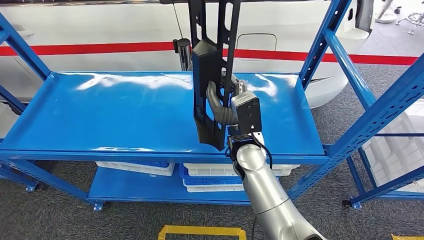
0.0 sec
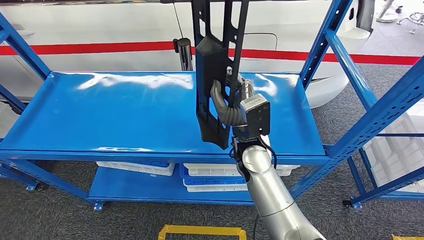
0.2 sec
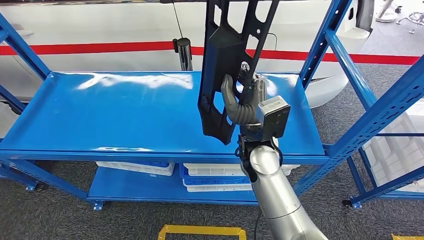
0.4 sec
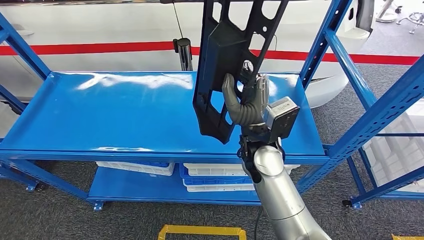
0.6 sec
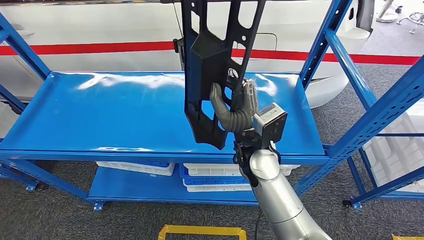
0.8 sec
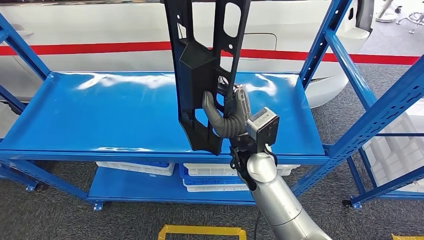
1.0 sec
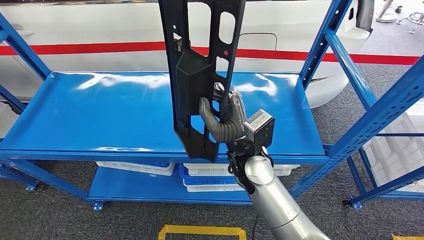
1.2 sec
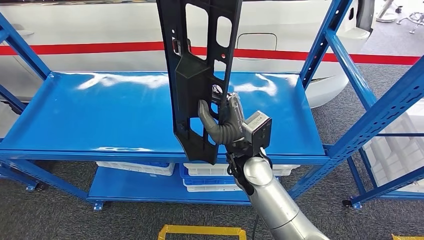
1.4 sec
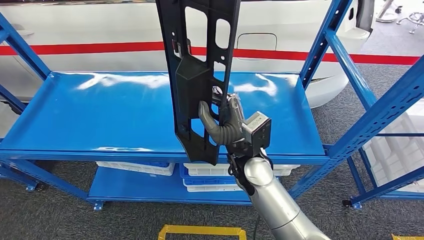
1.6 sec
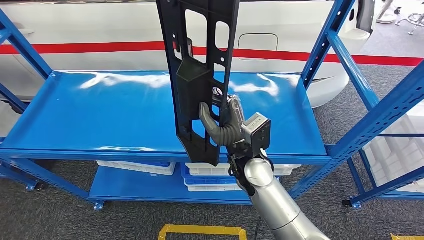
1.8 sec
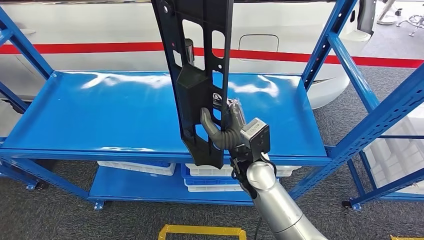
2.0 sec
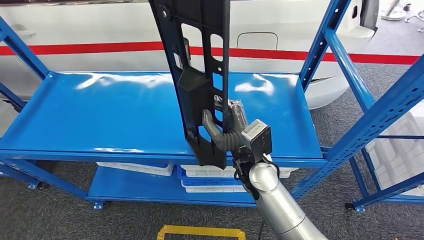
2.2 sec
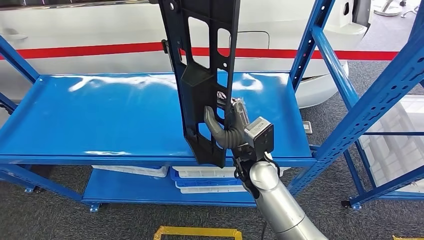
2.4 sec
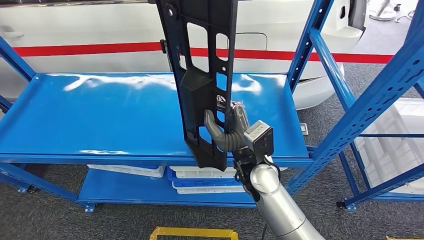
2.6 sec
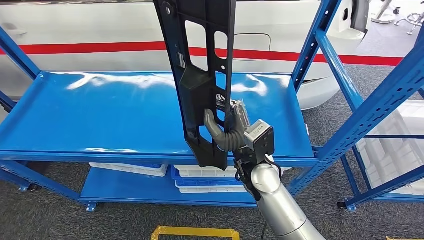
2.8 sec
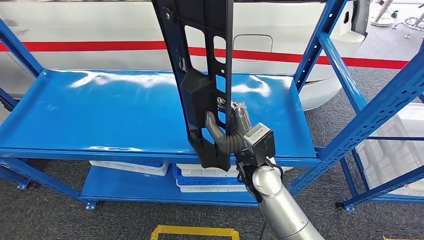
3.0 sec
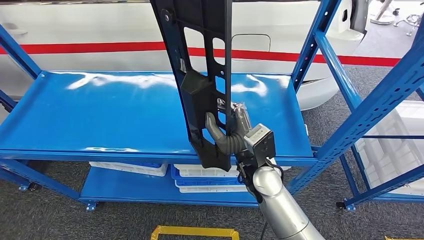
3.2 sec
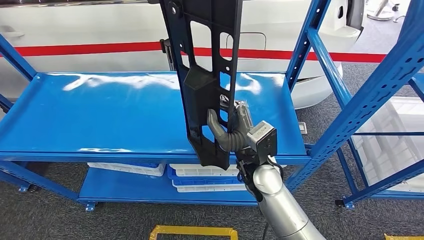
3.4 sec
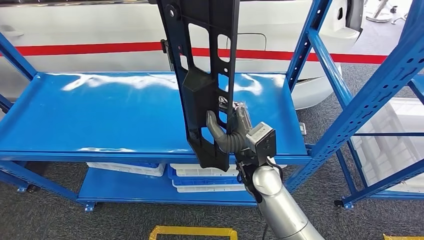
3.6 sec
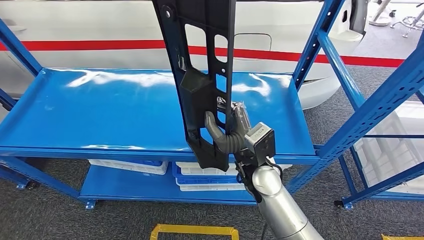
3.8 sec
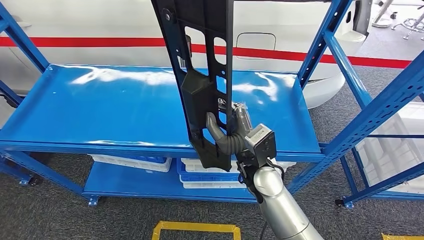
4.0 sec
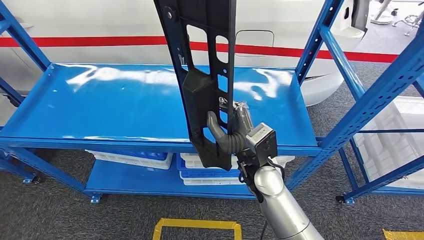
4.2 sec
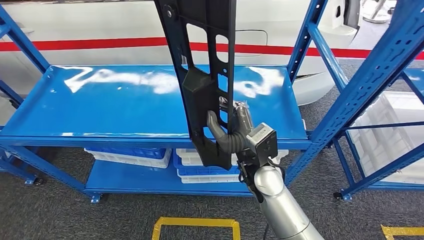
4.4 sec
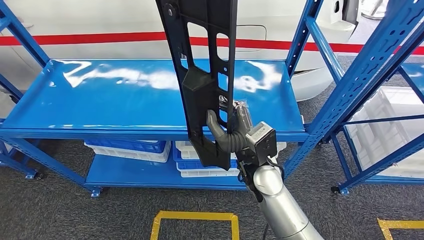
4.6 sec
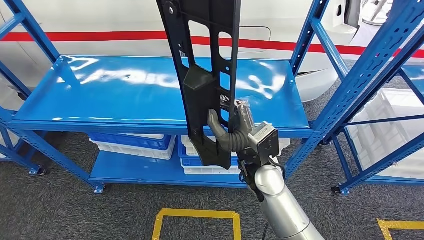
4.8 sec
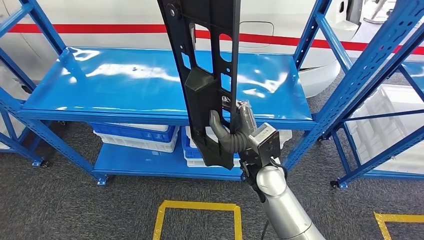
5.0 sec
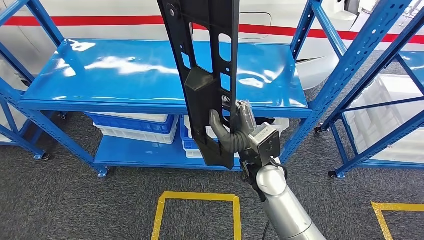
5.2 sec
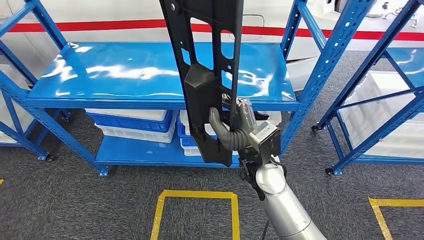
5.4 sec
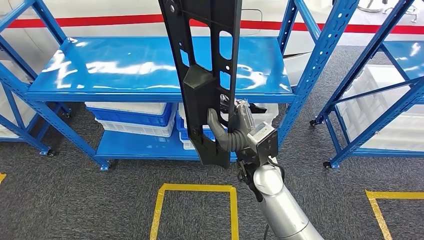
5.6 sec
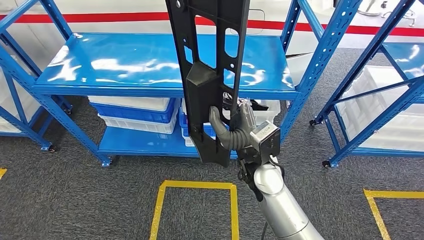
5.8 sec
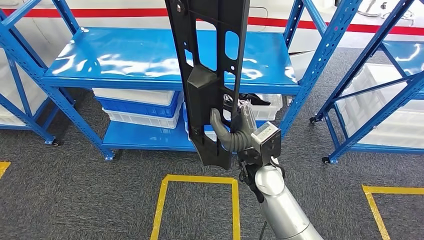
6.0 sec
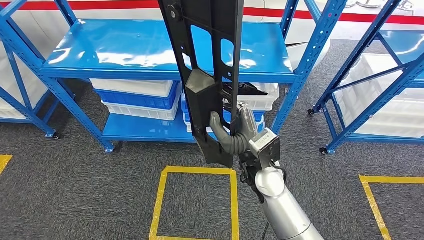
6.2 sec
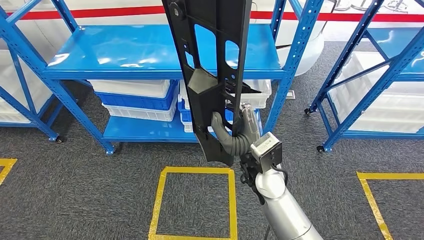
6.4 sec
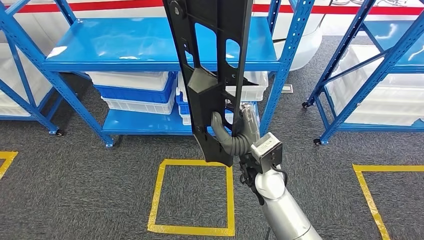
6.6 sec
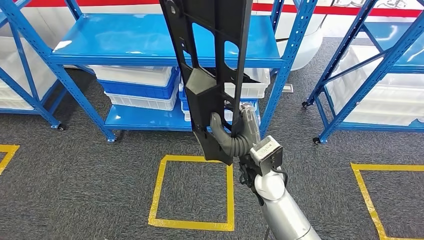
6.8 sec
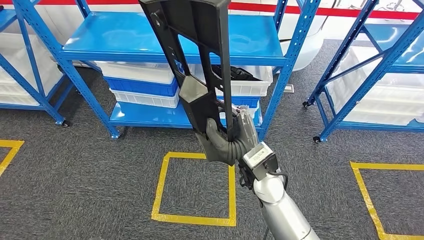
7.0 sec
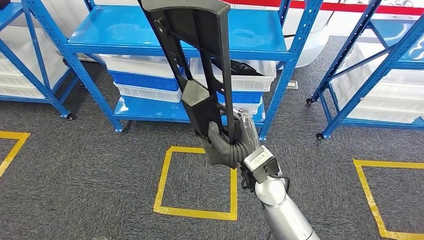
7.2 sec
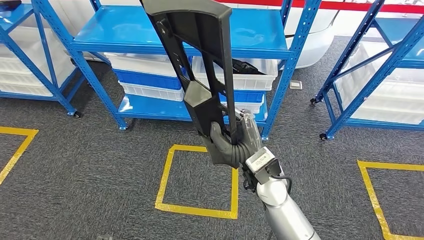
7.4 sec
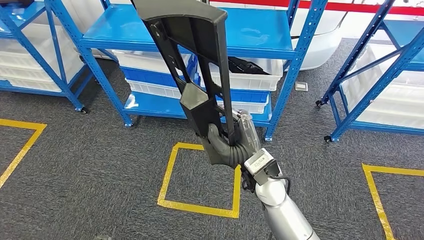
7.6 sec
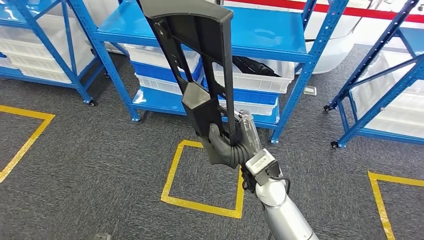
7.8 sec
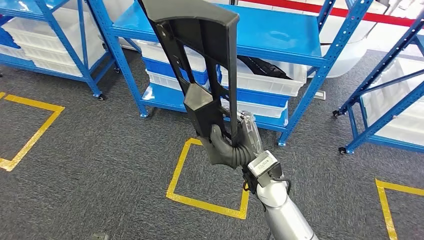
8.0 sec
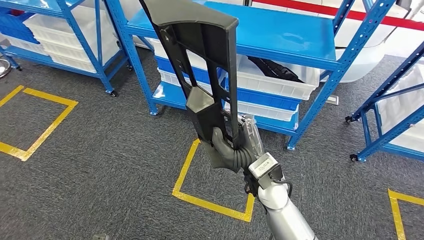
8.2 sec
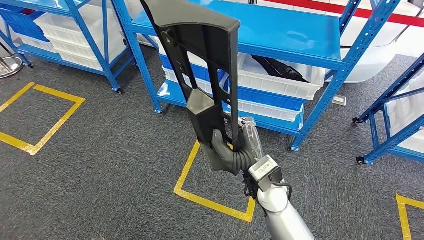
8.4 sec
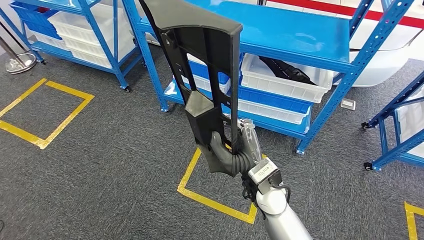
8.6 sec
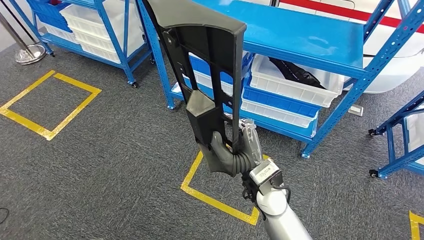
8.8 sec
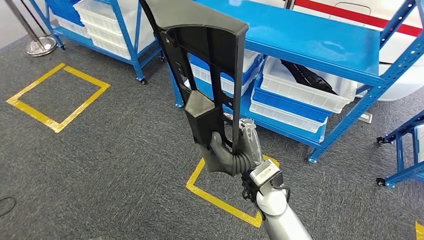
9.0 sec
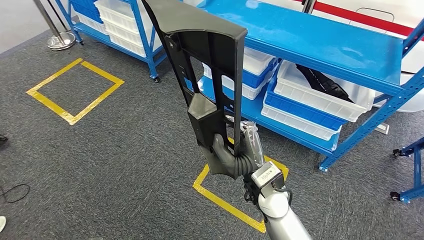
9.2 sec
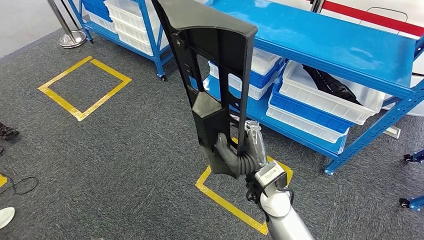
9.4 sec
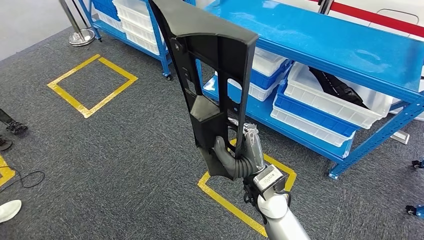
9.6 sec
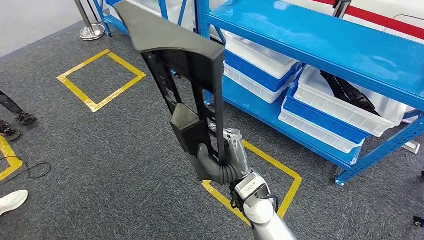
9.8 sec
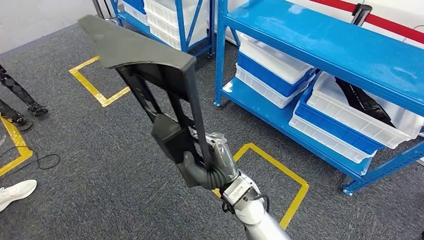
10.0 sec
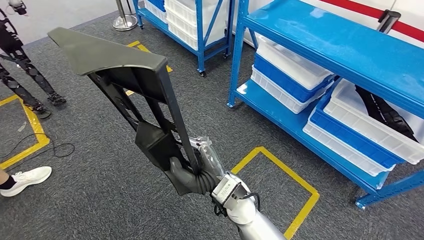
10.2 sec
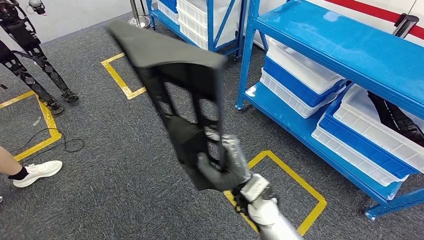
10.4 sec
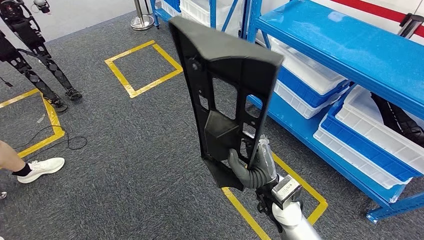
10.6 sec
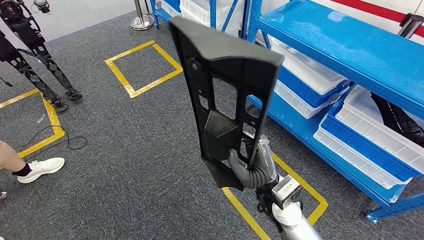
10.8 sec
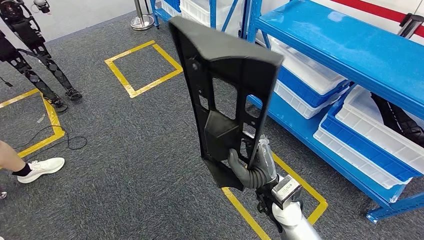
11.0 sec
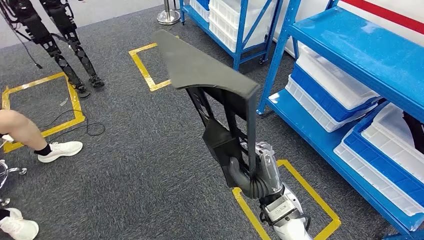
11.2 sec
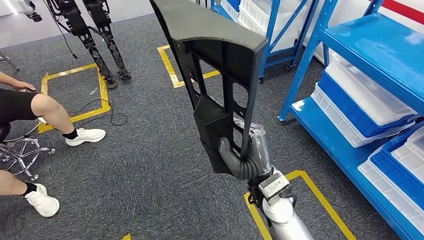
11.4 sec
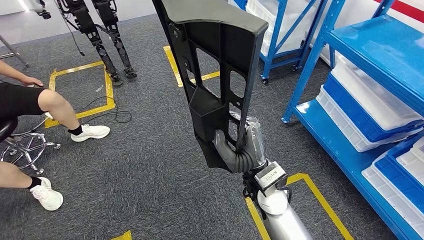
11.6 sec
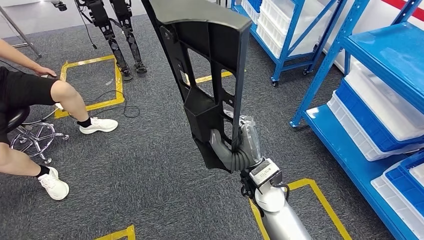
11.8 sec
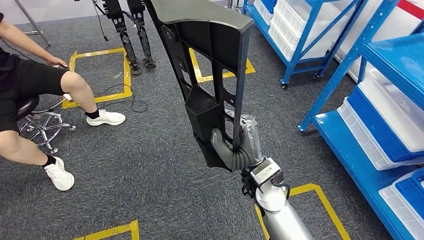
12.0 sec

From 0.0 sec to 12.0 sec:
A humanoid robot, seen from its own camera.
Step, from 0.0 sec to 2.6 sec: Pick up the large material from the shelf.
From 0.0 sec to 1.6 sec: There are only small adjustments of the hands.

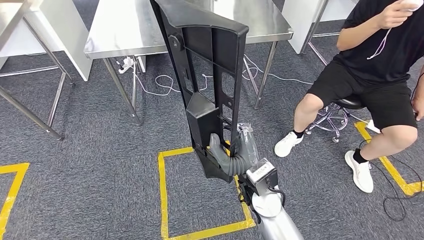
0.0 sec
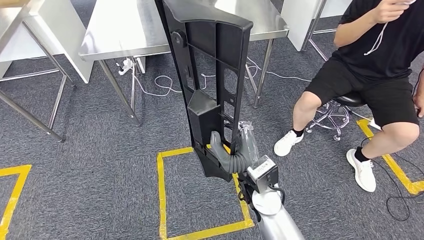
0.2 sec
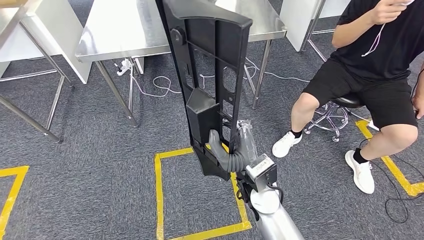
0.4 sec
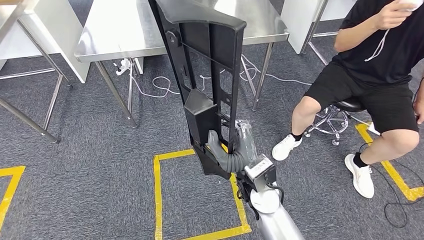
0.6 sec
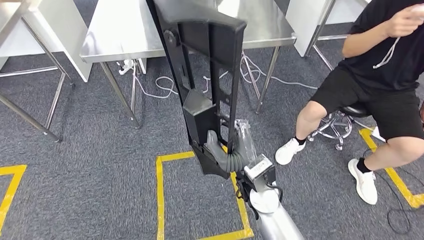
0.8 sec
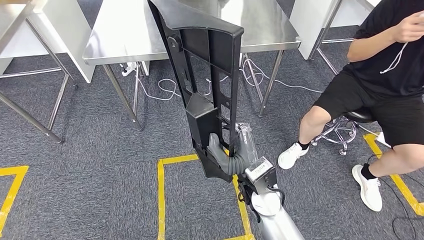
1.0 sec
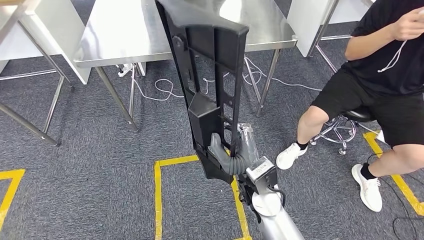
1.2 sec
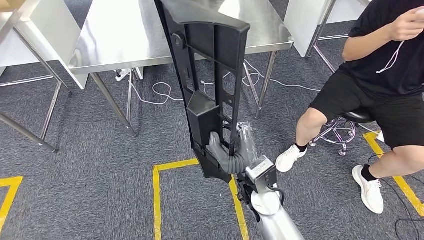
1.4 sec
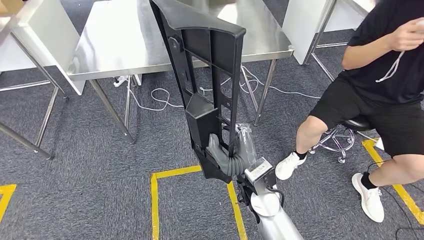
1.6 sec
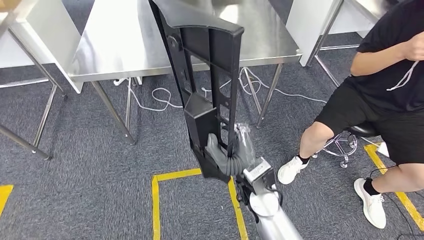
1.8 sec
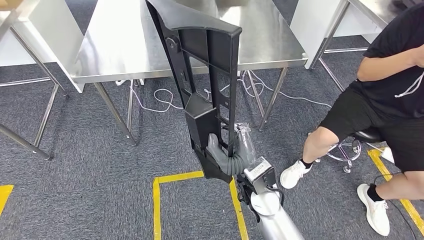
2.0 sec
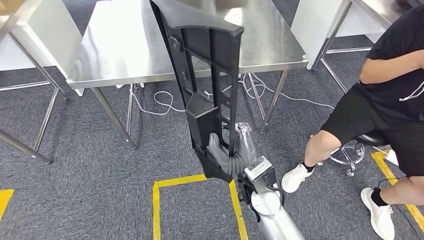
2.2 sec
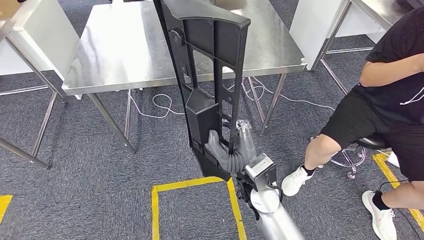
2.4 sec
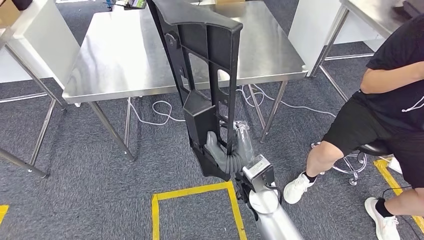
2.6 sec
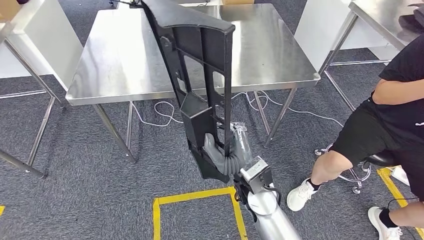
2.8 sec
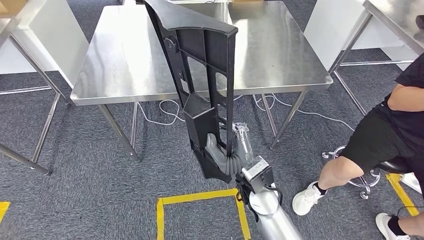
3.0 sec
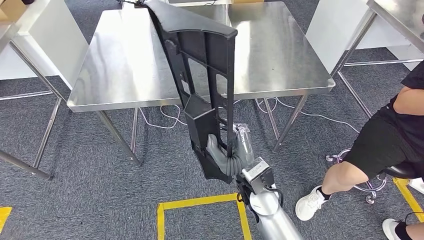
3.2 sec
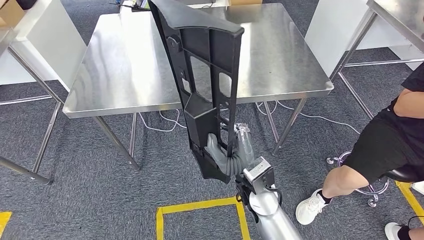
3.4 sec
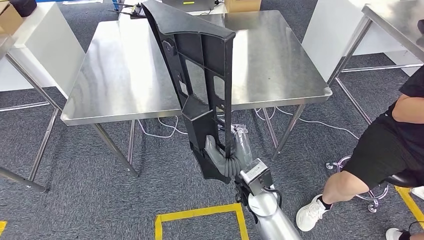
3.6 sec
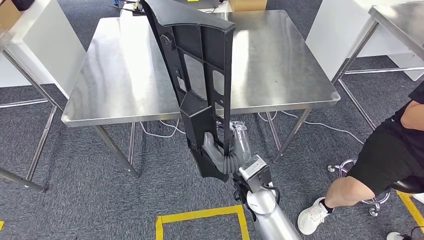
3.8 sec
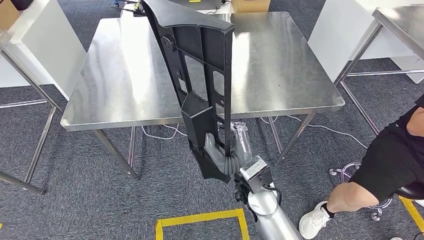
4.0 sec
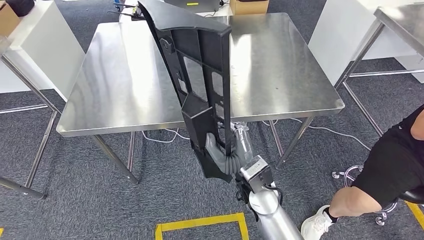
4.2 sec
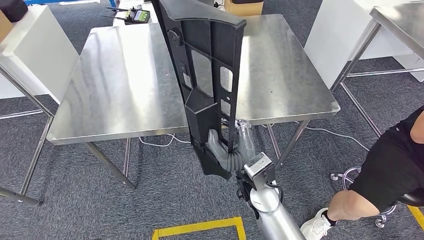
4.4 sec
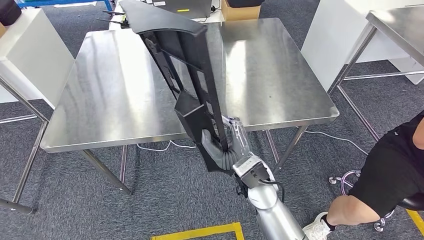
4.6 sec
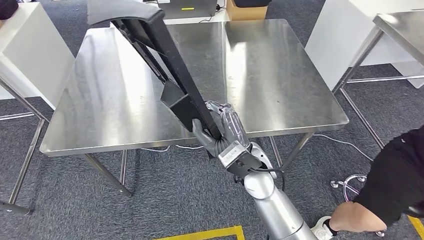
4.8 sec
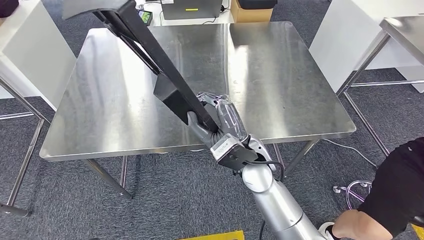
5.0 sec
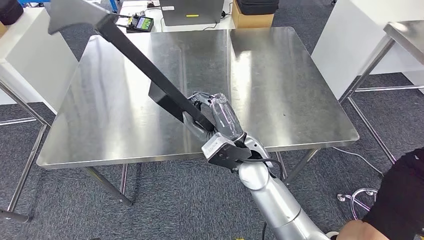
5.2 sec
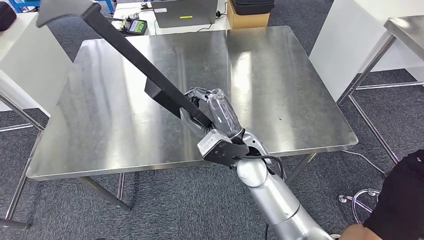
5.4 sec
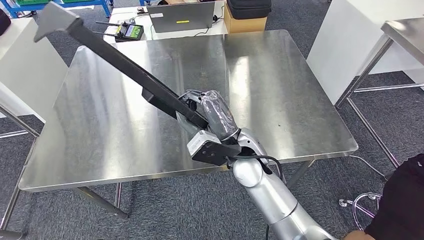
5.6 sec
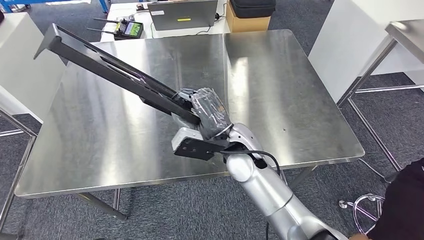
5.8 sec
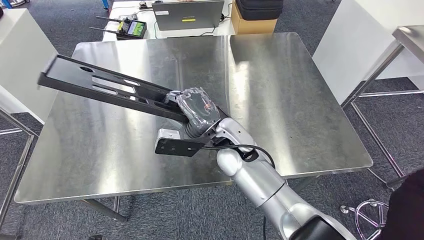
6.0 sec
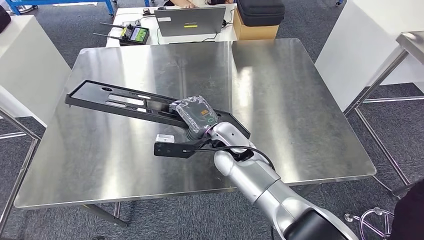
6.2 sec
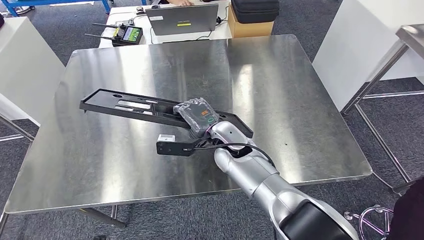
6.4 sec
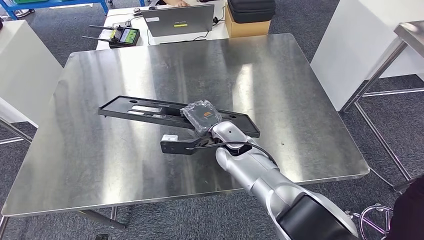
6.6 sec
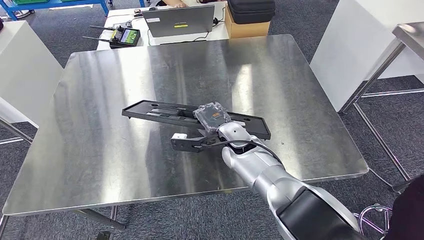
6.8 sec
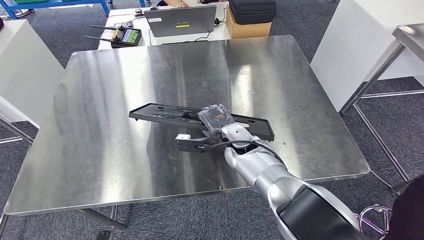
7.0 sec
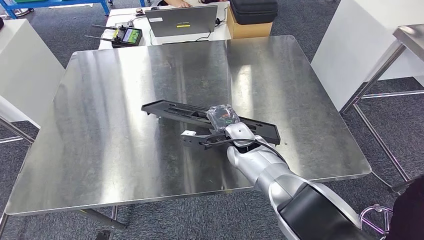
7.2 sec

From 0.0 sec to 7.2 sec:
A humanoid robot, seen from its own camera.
Step, from 0.0 sec to 2.4 sec: Move the large material to the front of the workbench.
